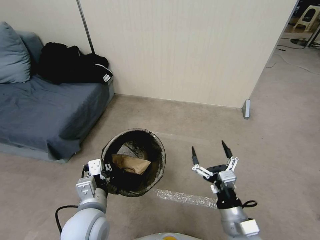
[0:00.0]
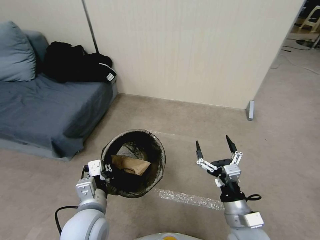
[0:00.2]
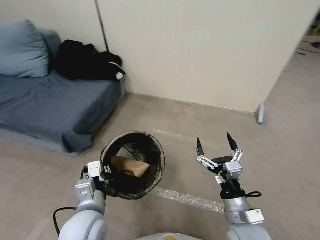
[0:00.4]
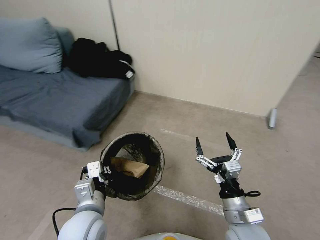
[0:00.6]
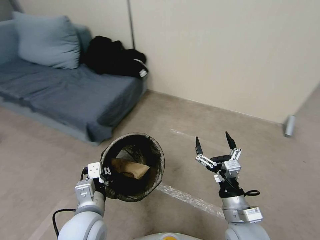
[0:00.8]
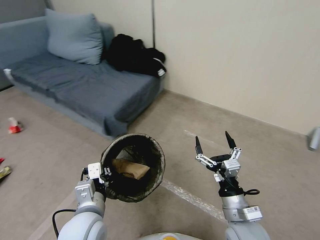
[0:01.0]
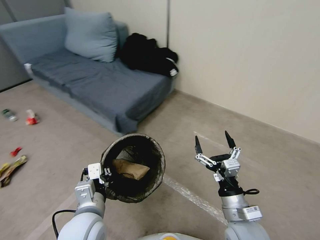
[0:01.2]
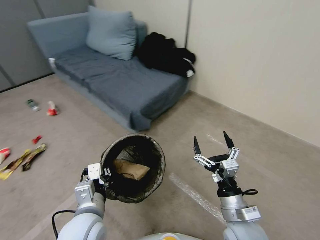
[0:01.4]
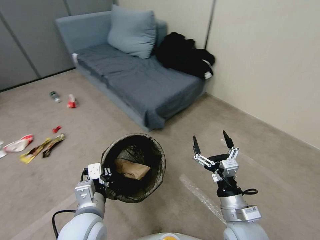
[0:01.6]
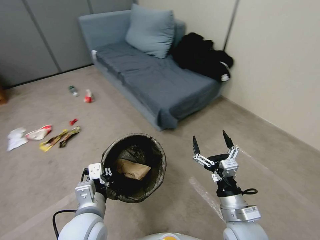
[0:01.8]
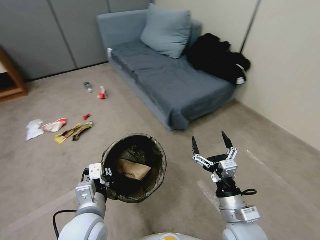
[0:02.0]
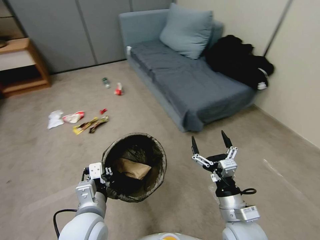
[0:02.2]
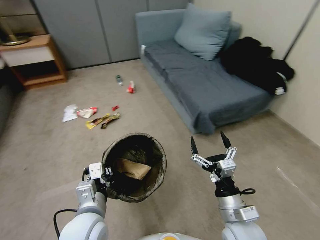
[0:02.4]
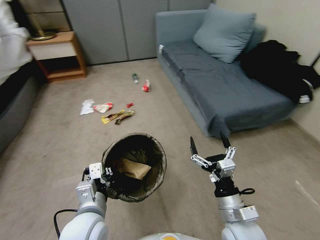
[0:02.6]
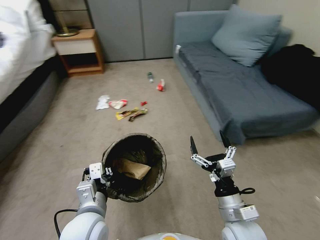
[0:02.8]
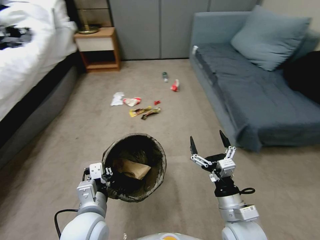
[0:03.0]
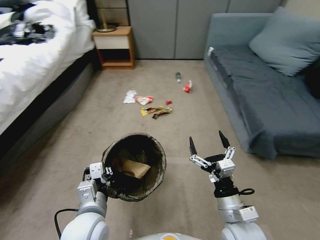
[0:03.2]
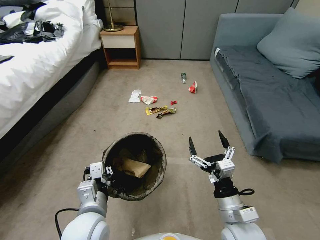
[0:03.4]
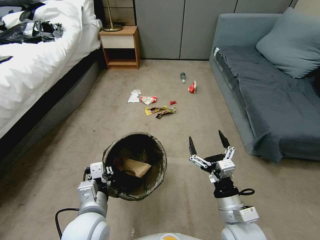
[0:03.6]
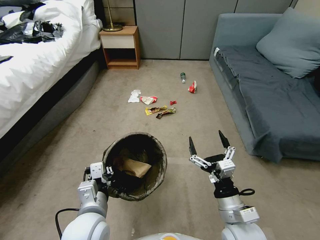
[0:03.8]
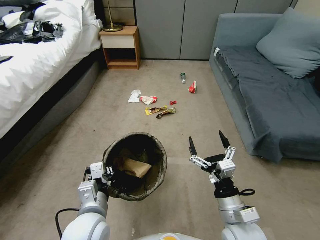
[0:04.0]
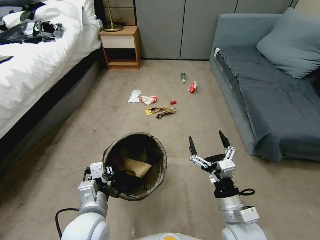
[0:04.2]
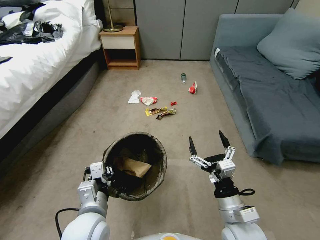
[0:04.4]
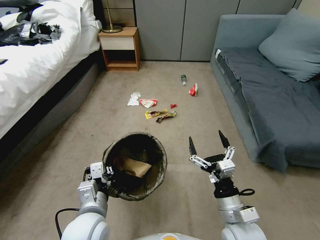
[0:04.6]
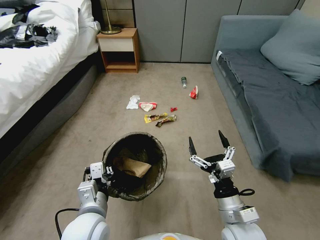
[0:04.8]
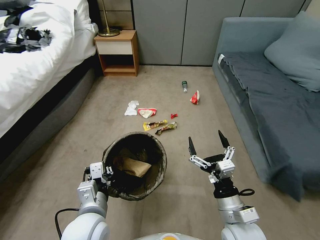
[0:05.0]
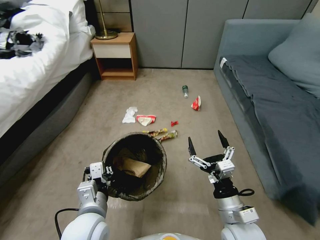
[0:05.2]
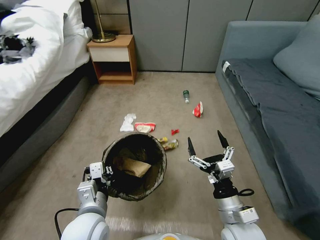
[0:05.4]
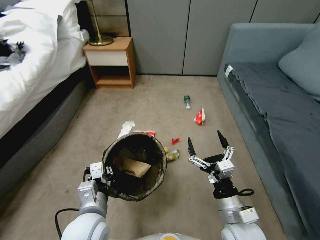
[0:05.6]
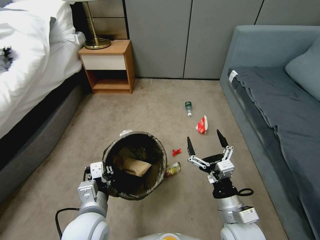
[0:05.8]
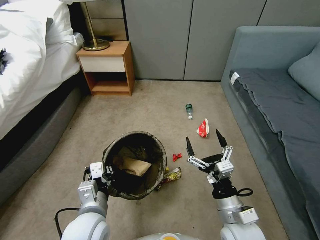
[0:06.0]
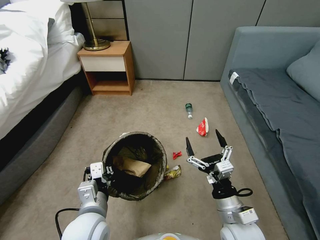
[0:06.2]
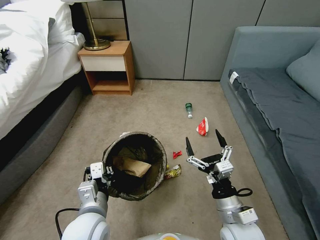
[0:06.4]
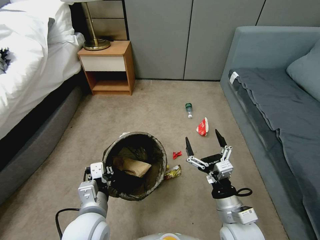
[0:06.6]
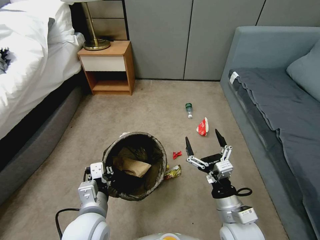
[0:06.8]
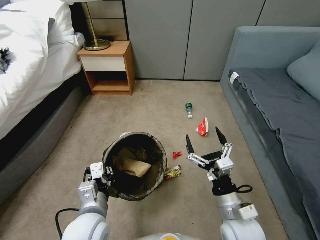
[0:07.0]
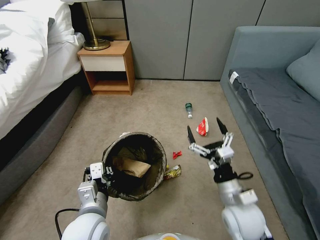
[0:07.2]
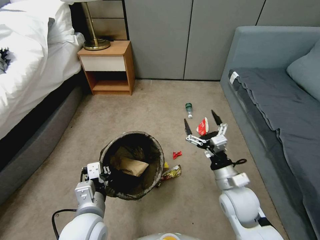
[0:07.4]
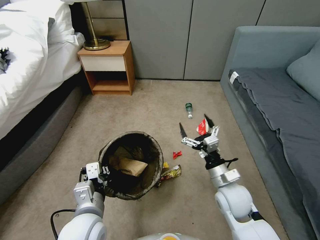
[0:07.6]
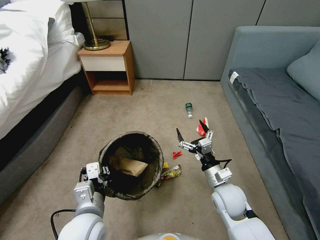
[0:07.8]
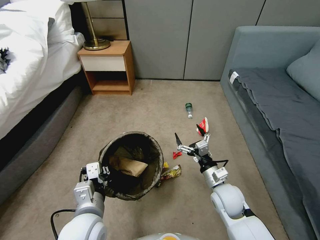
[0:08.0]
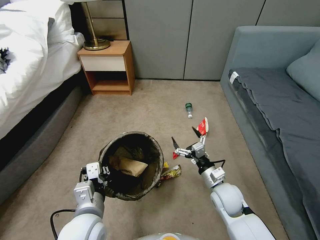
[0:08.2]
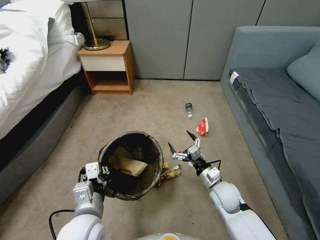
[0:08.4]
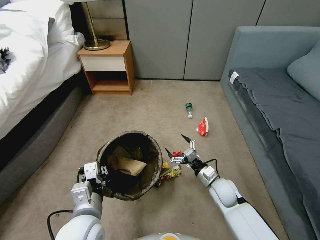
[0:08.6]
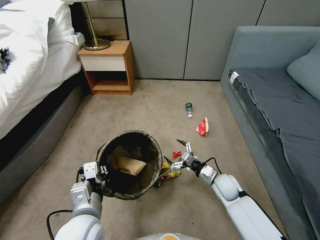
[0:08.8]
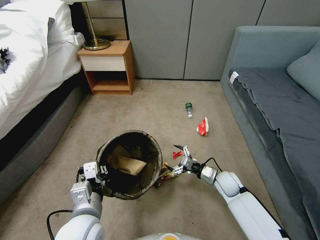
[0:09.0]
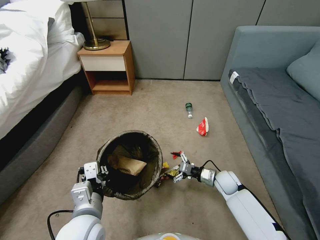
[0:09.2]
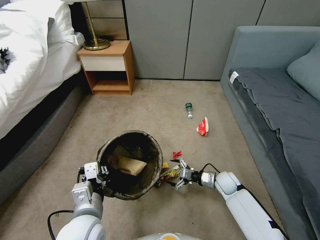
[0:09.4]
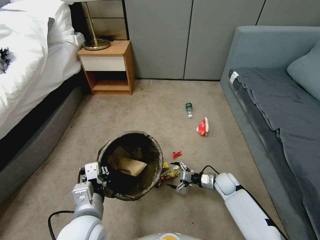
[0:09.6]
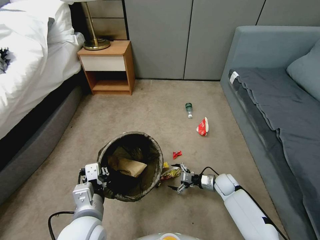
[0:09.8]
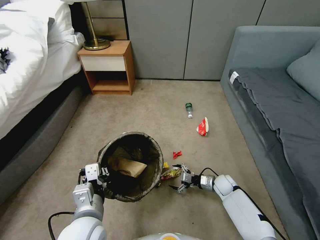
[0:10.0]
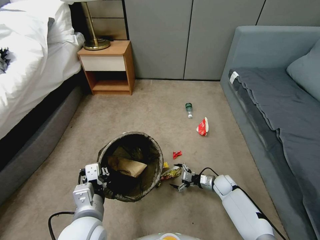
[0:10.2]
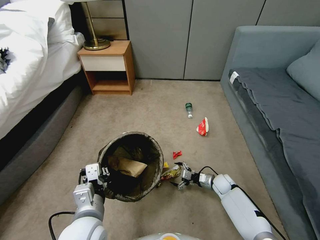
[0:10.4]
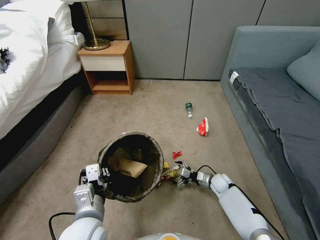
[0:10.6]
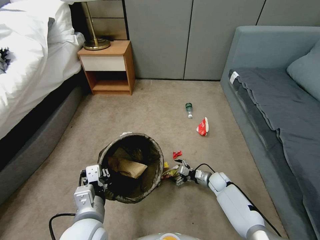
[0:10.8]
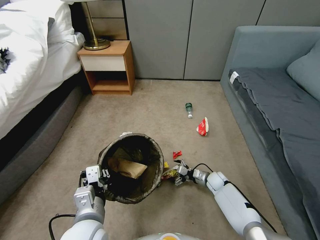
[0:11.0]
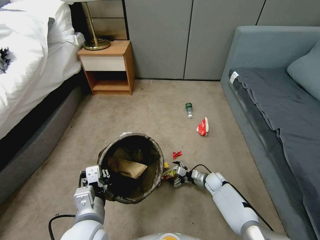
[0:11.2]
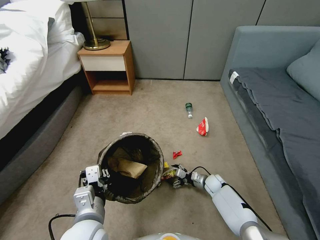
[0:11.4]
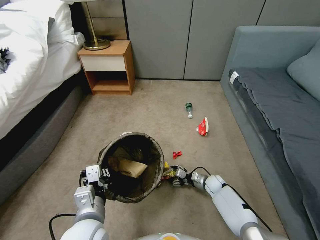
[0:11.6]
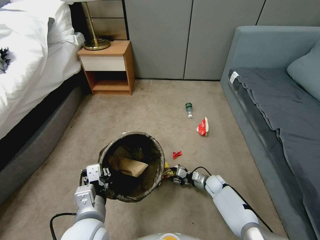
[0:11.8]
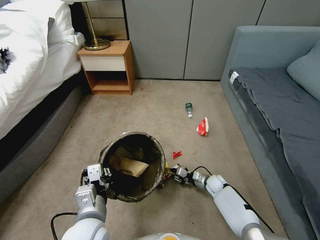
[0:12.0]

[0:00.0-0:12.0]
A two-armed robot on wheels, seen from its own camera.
Task of the whole recording: Pick up the trash bin, then pick up the garbage from the floor and place it into the trash bin.
0:06.0 to 0:07.6: The right gripper is displaced forward by some 10 cm.
0:07.6 to 0:09.0: The right gripper heads downward, forward and to the right, covering approximately 15 cm.
0:09.0 to 0:10.4: The right gripper moves downward, approximately 10 cm.
0:10.4 to 0:12.0: The right gripper closes.

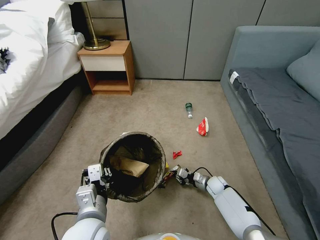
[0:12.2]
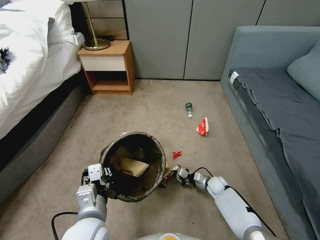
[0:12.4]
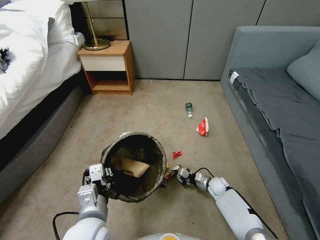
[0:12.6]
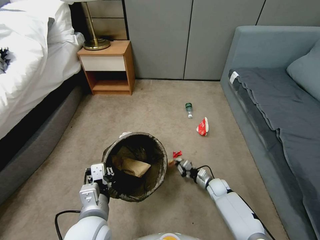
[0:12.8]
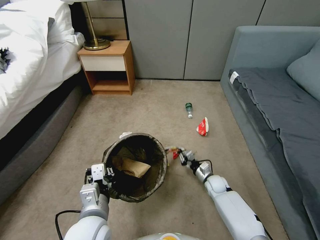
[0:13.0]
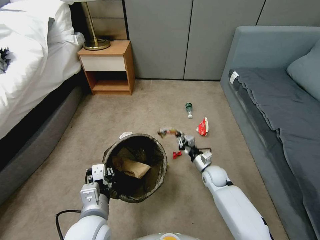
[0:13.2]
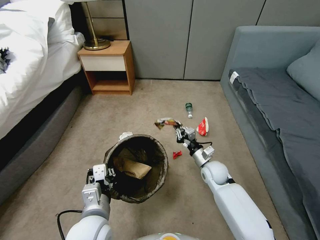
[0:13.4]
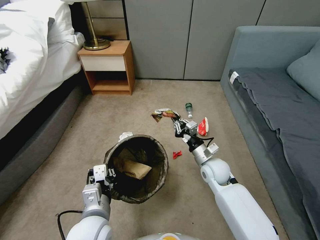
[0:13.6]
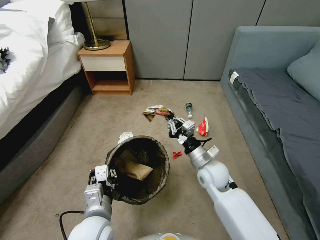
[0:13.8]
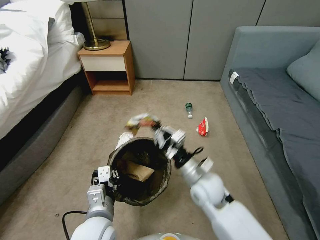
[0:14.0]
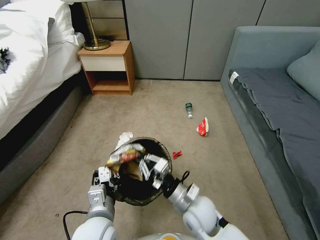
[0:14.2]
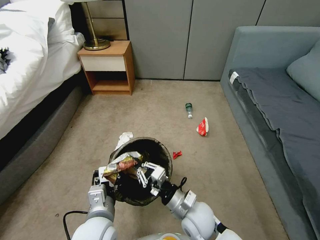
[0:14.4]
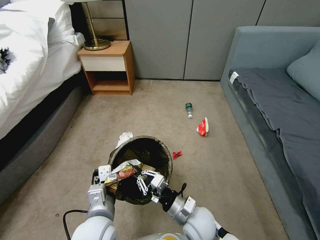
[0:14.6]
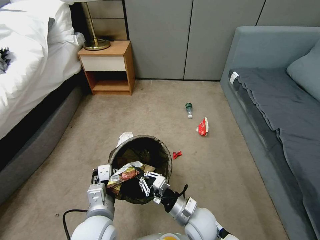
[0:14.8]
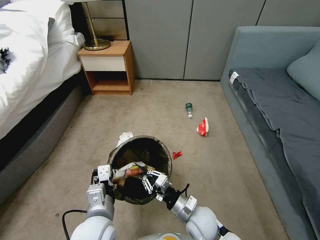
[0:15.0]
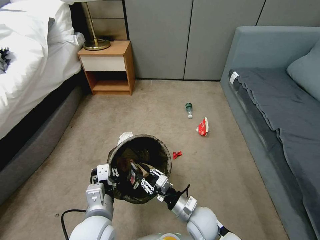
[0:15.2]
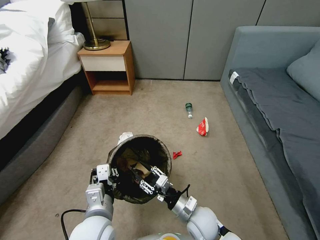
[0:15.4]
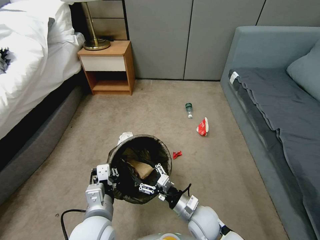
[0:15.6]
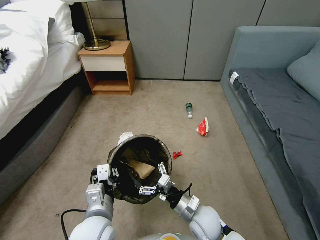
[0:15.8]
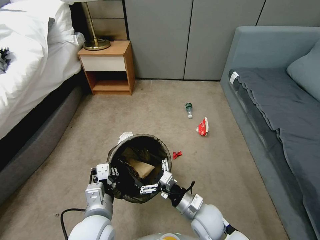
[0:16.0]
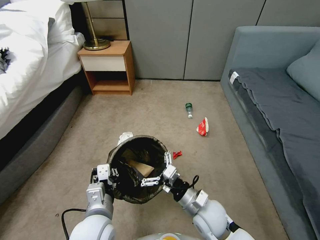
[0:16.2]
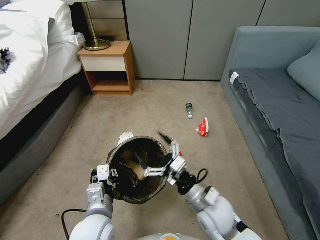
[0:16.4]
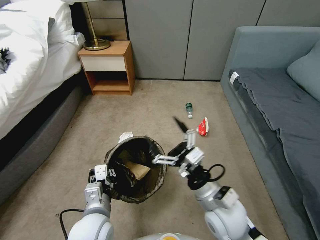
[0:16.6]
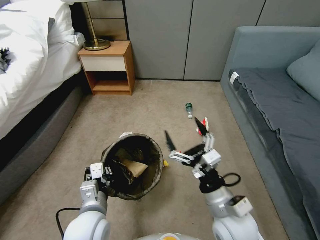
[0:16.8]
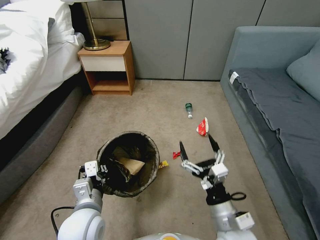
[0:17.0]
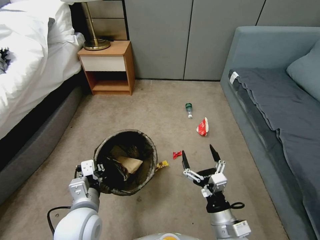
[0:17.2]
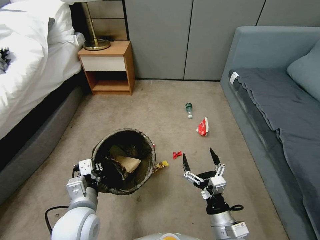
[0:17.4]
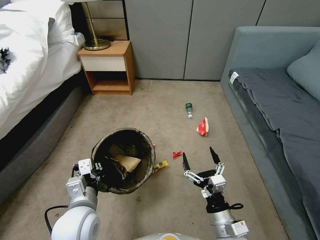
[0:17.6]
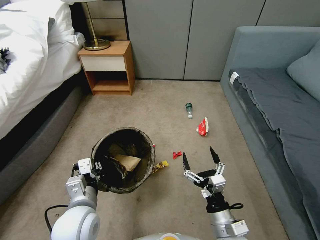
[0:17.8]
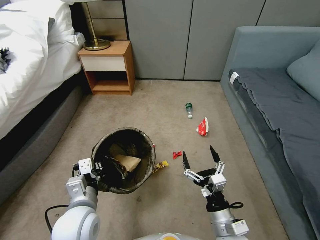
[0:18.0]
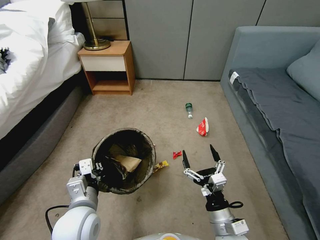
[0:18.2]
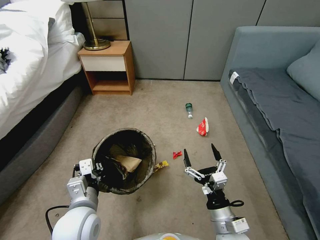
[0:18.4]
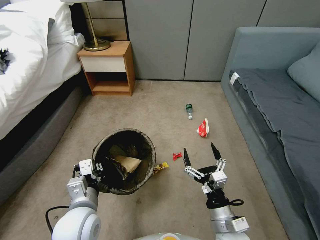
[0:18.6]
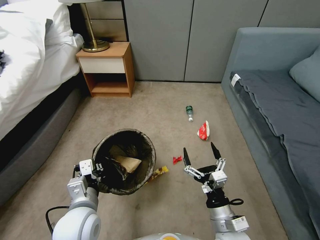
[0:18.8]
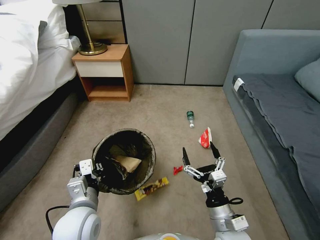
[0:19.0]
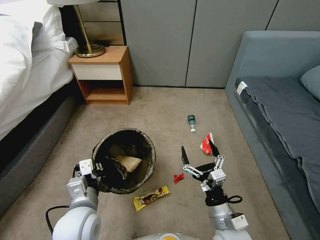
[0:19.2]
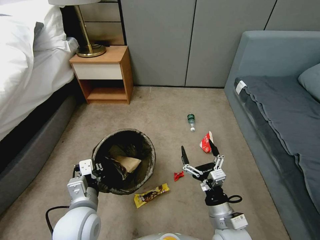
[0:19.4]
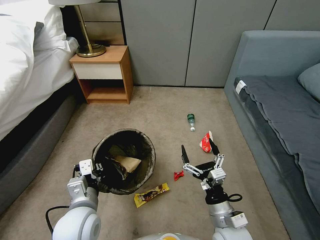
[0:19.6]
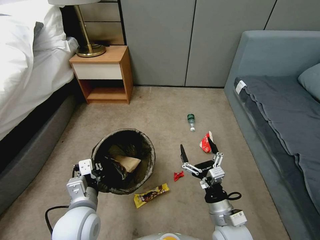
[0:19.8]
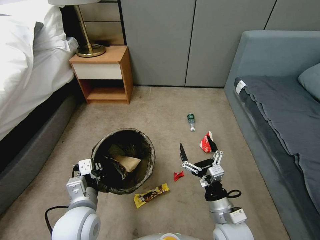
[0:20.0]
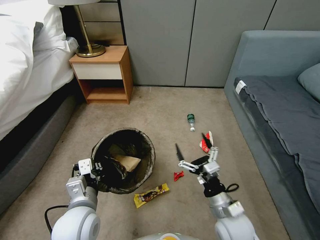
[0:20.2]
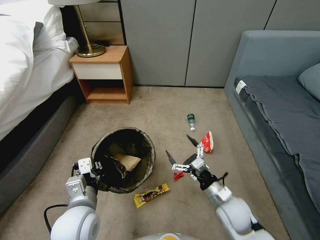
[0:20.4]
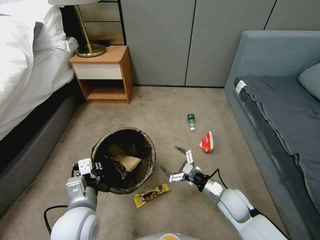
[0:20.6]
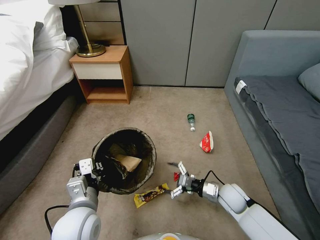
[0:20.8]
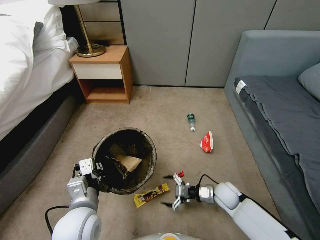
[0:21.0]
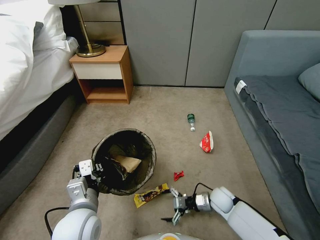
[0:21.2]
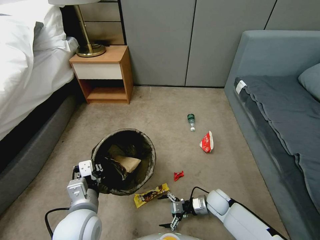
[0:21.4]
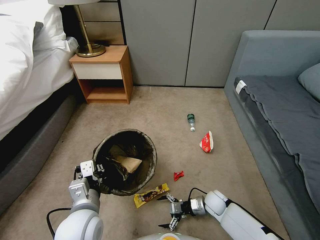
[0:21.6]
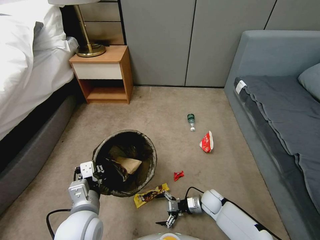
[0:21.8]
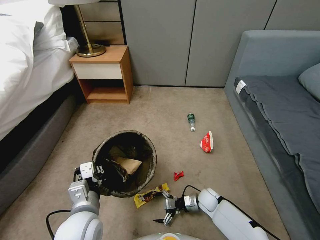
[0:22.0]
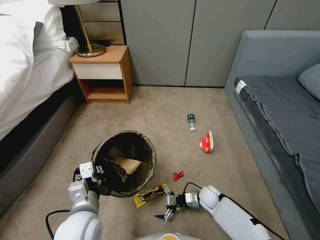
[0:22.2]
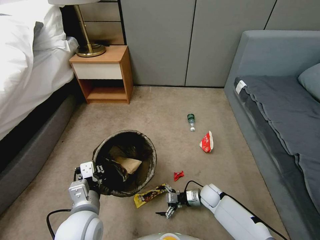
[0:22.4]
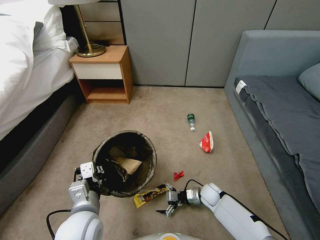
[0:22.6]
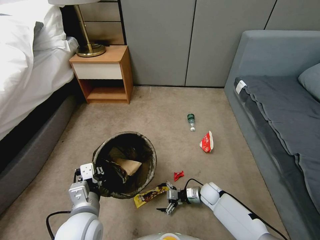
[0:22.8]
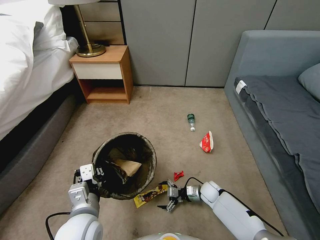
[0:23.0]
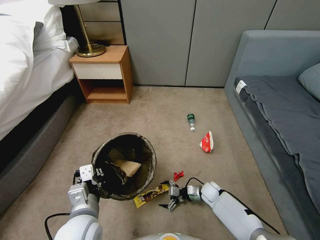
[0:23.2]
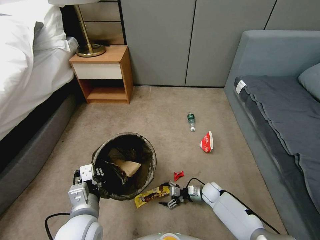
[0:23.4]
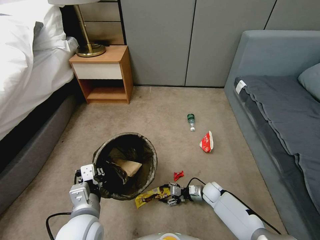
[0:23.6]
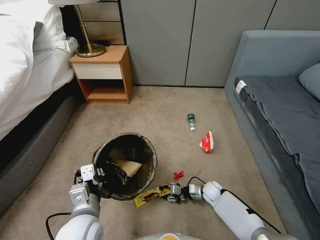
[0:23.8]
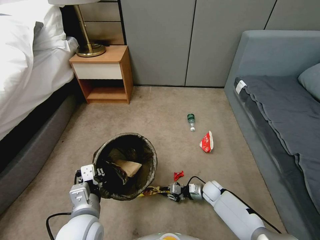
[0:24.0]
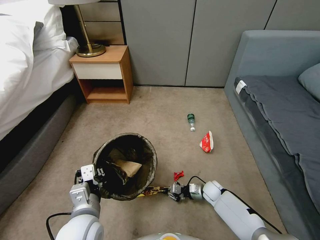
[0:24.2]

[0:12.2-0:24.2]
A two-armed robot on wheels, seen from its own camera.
Task of the whole recording: Pick up the trash bin, then pick up the garbage from the floor and place it into the trash bin.
0:12.2 to 0:13.8: The right gripper moves upward, about 25 cm.
0:13.8 to 0:15.2: The right gripper moves backward and downward, approximately 15 cm.
0:15.2 to 0:16.6: The right gripper shifts some 15 cm upward, and opens up.
0:16.6 to 0:18.2: The right gripper goes some 10 cm downward and backward.
0:18.2 to 0:19.8: The grippers stay close to where they were, moving slightly.
0:19.8 to 0:21.2: The right gripper moves downward and forward, about 20 cm.
0:21.2 to 0:22.6: The right gripper ends up approximately 5 cm from where it was.
0:22.6 to 0:24.2: The right gripper closes its fingers.
